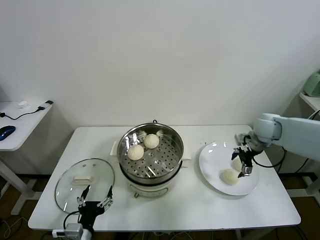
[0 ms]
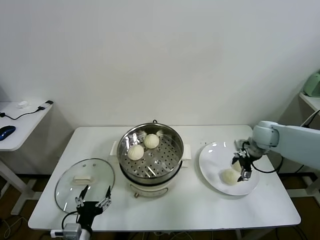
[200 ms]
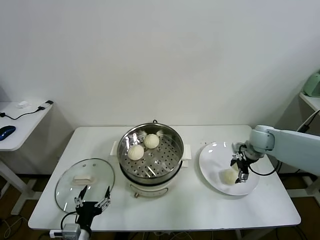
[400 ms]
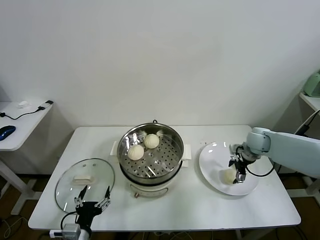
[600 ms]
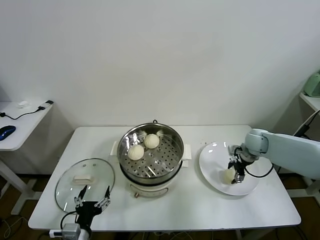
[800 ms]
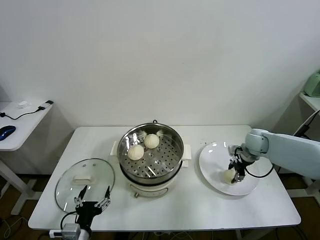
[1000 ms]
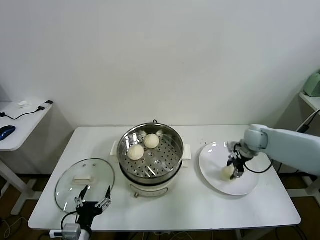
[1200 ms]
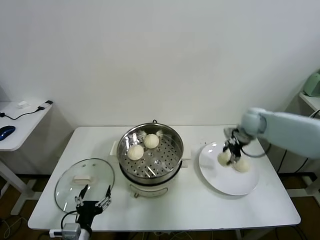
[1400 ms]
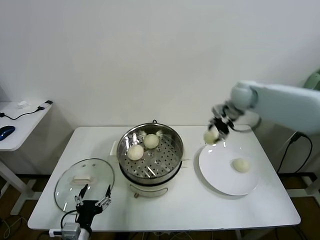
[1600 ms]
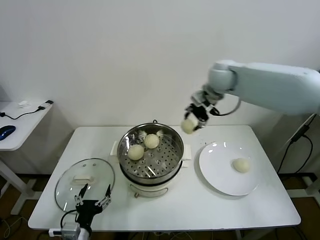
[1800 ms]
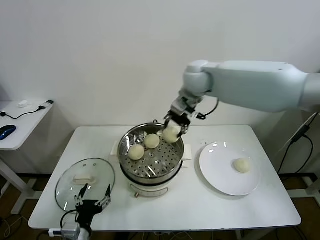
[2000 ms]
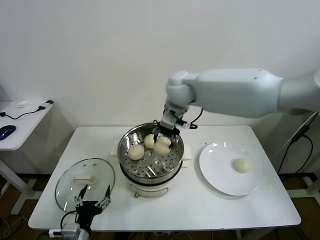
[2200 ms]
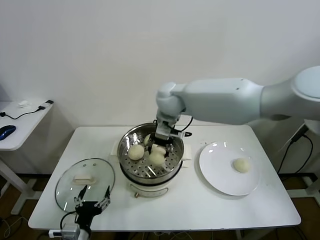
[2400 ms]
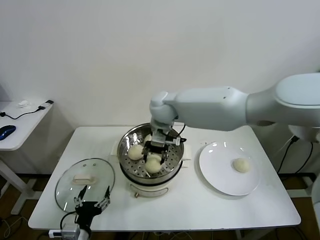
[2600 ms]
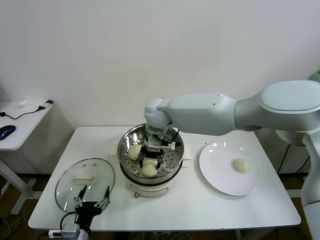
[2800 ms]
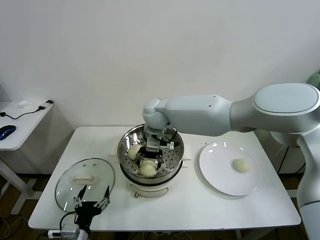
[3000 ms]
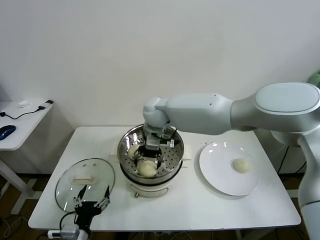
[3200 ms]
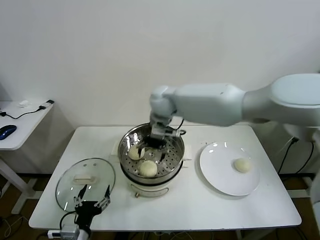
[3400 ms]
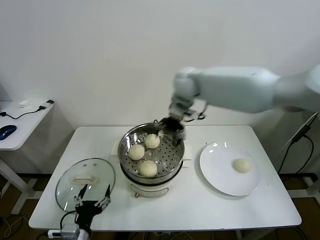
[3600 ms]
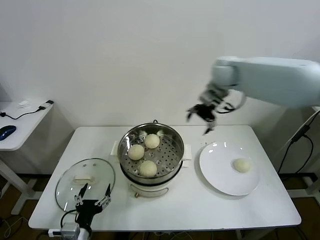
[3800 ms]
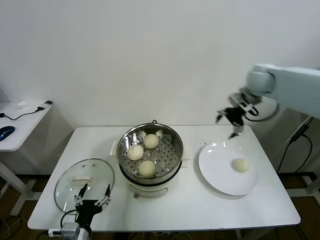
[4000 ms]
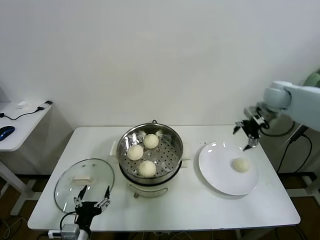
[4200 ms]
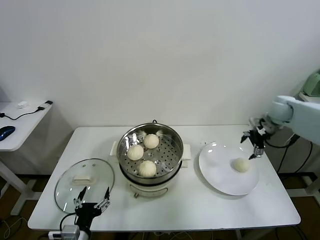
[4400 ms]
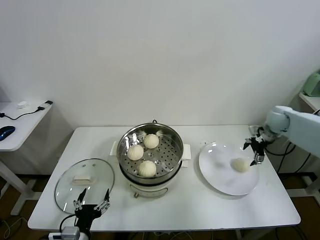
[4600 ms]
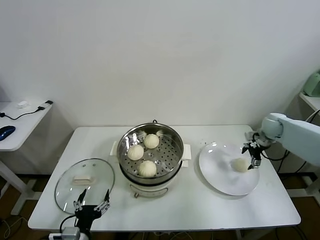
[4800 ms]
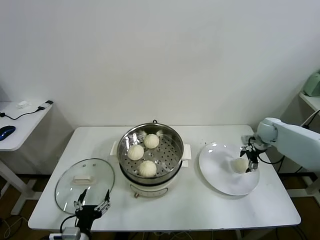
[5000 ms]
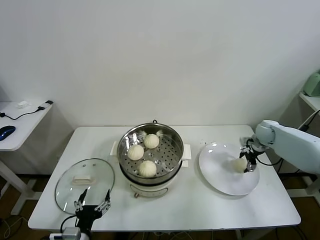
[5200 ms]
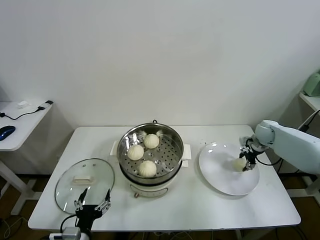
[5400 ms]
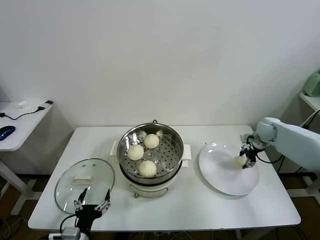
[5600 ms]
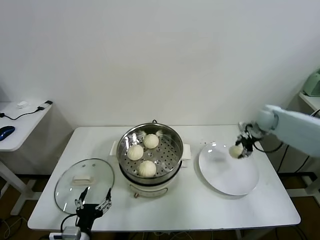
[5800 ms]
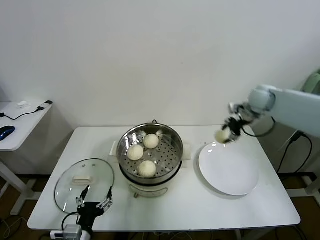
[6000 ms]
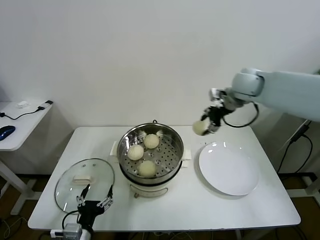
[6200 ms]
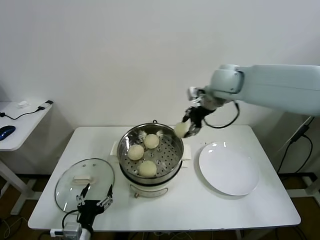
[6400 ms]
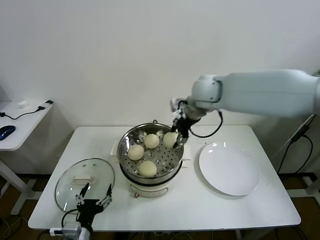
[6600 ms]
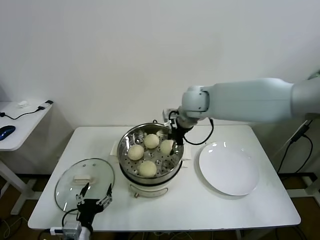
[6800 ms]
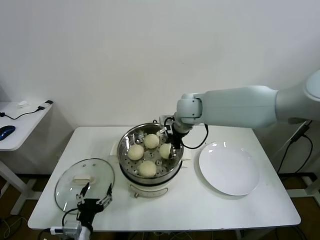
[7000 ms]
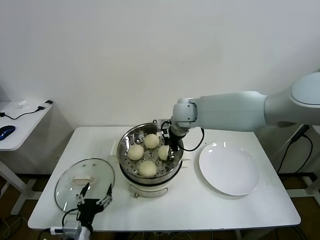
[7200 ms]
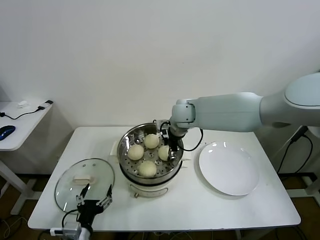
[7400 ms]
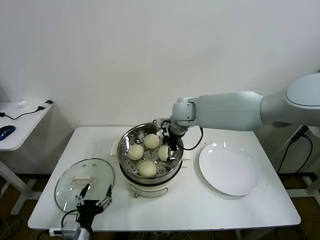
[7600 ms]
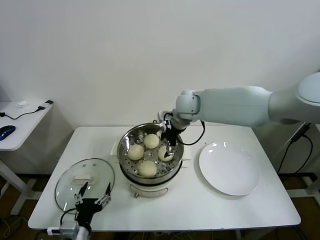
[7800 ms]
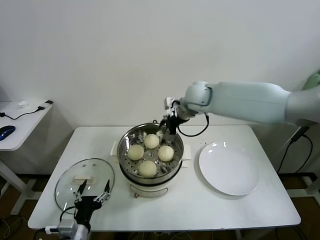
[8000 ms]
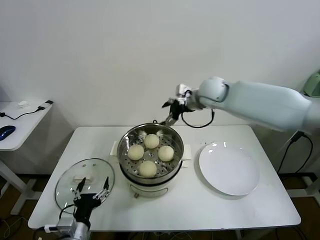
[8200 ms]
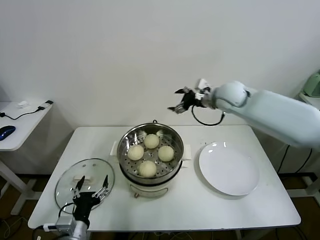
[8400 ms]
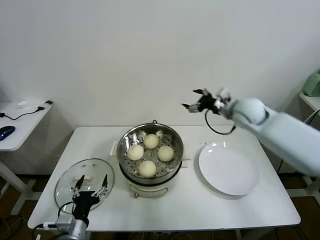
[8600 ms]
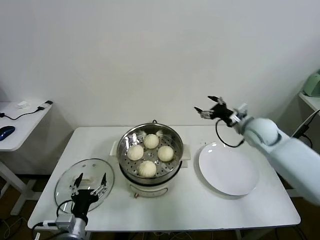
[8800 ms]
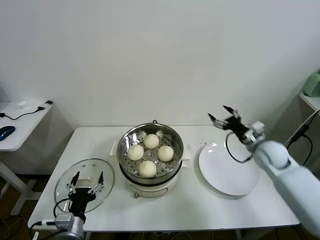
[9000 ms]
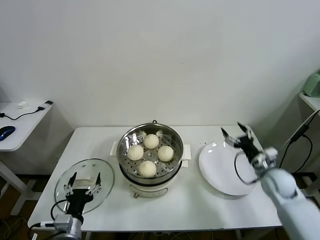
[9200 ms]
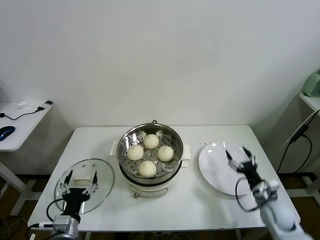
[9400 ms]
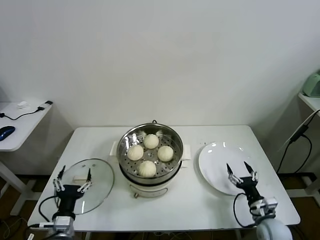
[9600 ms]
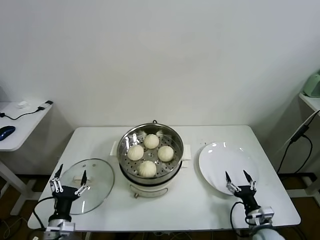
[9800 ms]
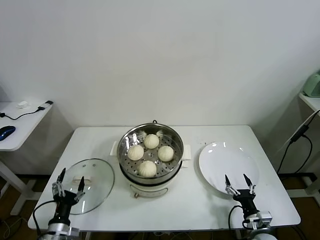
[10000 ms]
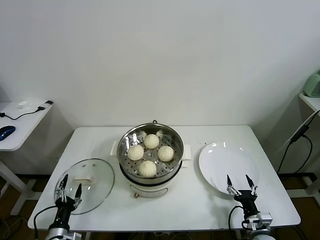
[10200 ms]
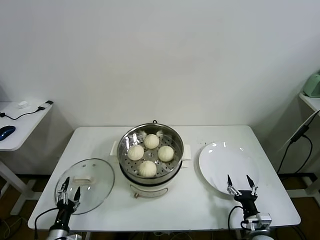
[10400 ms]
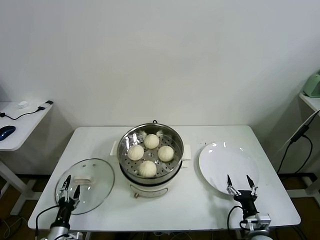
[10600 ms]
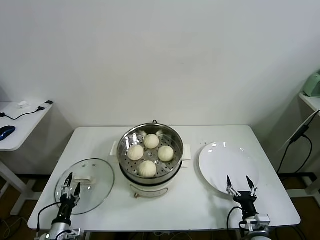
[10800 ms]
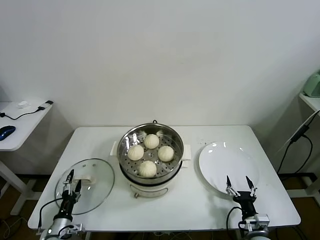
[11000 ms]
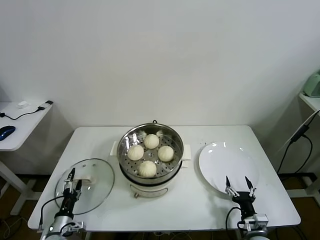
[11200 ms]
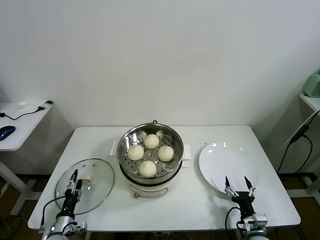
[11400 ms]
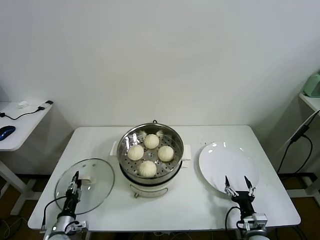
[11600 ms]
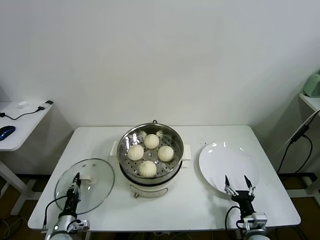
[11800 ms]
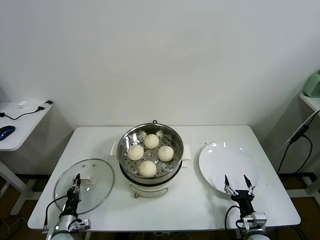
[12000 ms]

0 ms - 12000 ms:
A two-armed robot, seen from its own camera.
Task of the whole recording: take steamed baozi put them in steamer.
Step, 1000 ms - 3000 ms: Place the baozi on the steamer with right gripper.
Step, 3200 ms - 5200 ms: Grasp the baozi in the plate with right gripper.
Step, 5600 ms - 7400 ms: Place the baozi on the steamer with right gripper.
Step, 7600 ms - 12000 ms: Grasp the pot lid with left gripper.
0 ms - 1600 ms: The right gripper heads upward, to the left and forward, covering roughly 20 cm, and closes.
1600 ms - 3000 ms: The right gripper is displaced to the left by about 25 cm, and opens its fingers.
3000 ms - 4400 ms: The right gripper moves to the right, approximately 50 cm.
4400 ms - 6000 ms: The right gripper travels to the left and upward by some 15 cm, and closes.
6000 ms - 7600 ms: The right gripper heads to the left, covering roughly 25 cm, and opens.
7600 ms - 9000 ms: The right gripper goes approximately 30 cm to the right and downward.
9000 ms - 10400 ms: The right gripper heads backward and downward, covering about 30 cm, while the left gripper goes some 15 cm downward and to the left.
10400 ms - 12000 ms: The left gripper moves forward, about 5 cm, and closes up.

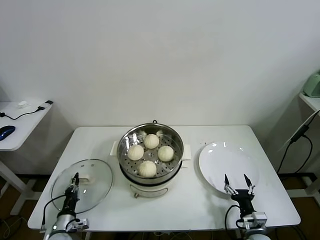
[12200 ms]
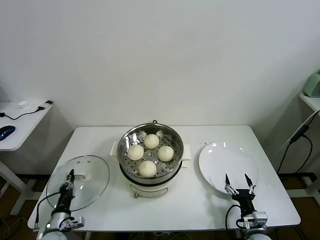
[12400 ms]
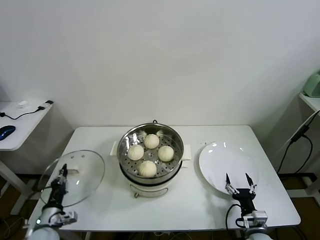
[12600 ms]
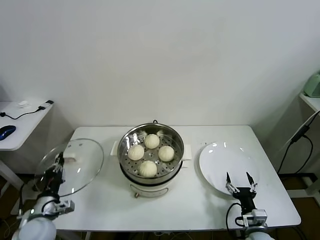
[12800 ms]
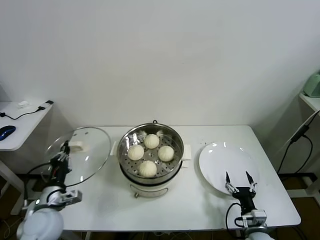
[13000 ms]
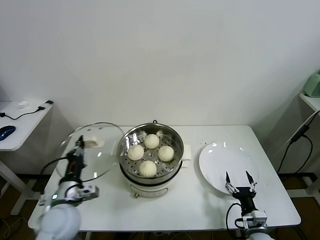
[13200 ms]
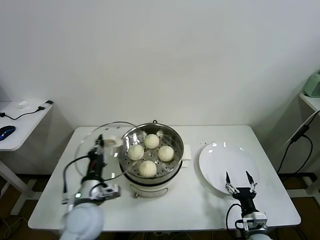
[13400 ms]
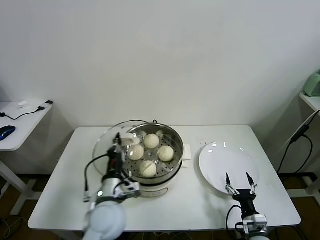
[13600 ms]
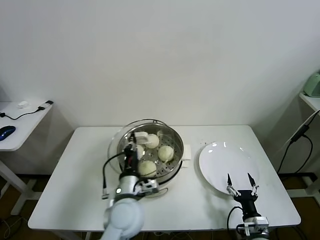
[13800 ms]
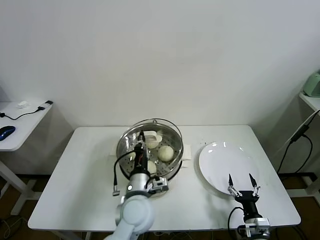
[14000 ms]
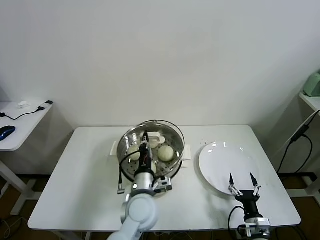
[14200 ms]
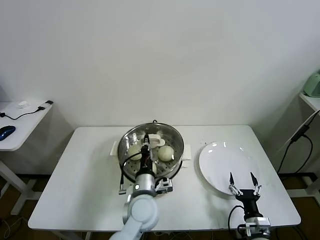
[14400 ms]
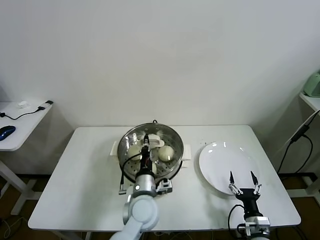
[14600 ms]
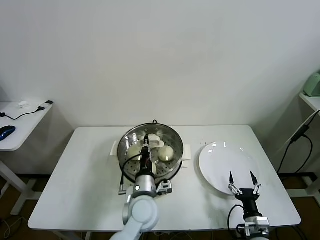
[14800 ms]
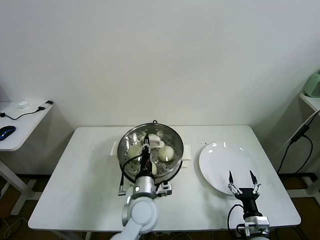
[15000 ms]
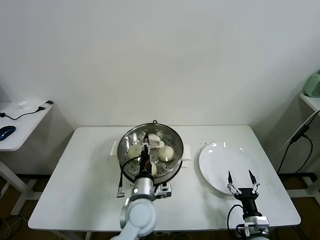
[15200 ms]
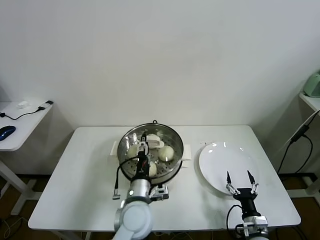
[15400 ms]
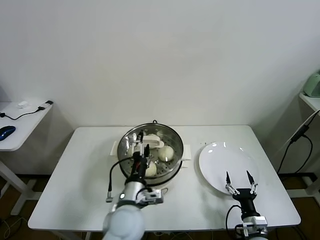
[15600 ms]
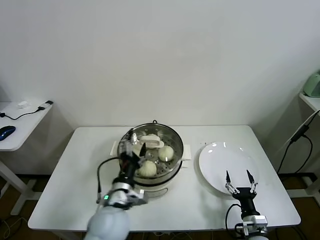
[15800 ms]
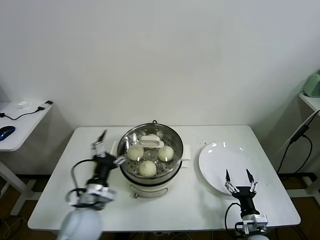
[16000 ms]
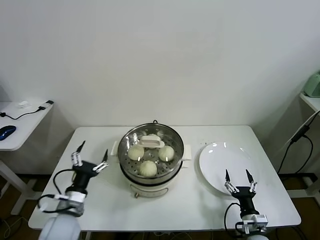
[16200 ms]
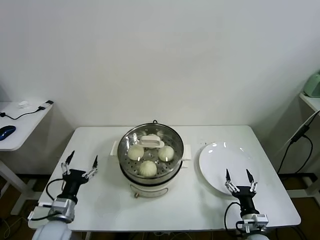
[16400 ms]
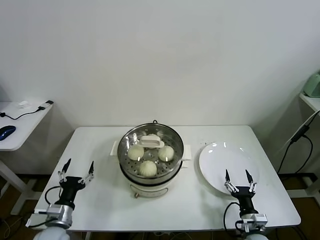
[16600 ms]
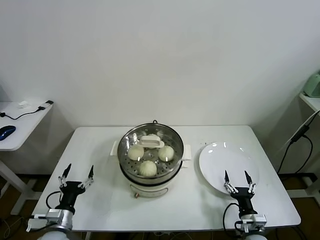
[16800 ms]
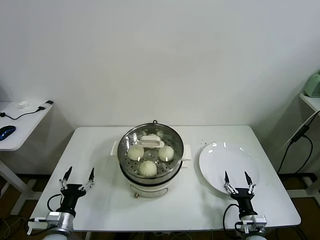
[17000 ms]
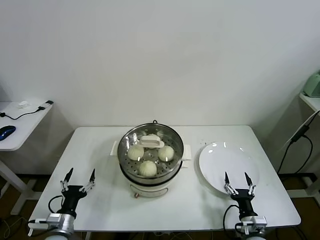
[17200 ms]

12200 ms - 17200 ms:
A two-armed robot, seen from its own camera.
Task of the whole recording: take steamed baozi put them in steamer.
Step, 12200 ms - 15200 ms: Place the pot lid on the steamer with left gripper.
12200 ms - 13800 ms: The left gripper heads to the right and upward, covering roughly 35 cm.
13800 ms - 15600 ms: The left gripper opens up.
15600 ms - 17200 ms: The left gripper shifts about 30 cm to the left and downward.
